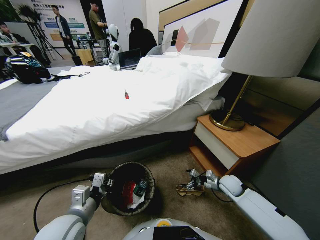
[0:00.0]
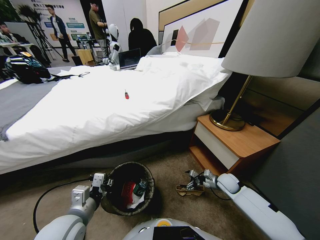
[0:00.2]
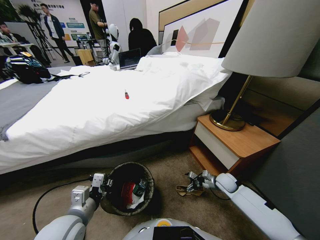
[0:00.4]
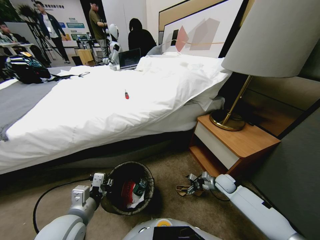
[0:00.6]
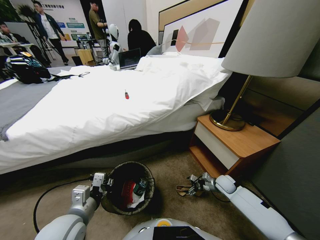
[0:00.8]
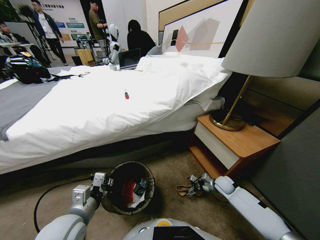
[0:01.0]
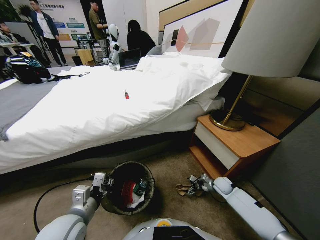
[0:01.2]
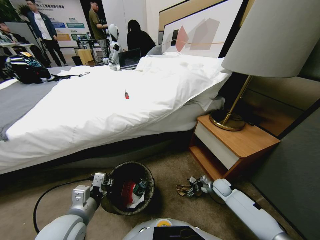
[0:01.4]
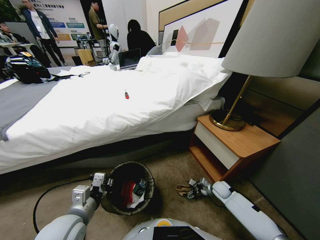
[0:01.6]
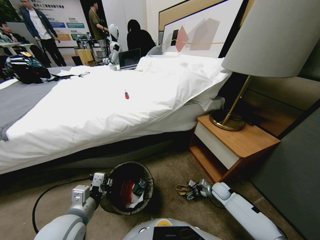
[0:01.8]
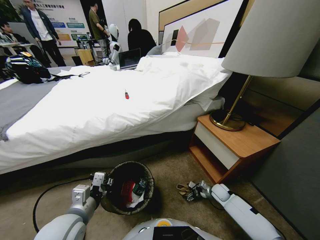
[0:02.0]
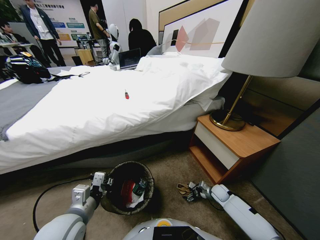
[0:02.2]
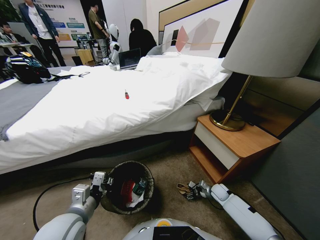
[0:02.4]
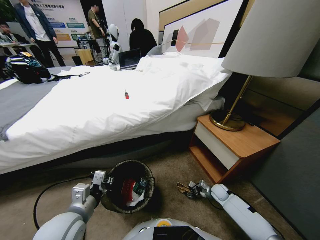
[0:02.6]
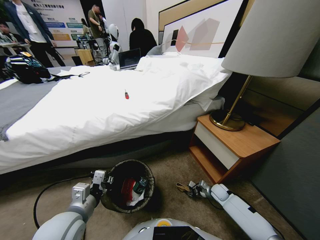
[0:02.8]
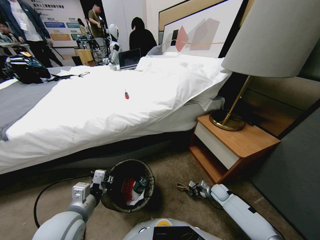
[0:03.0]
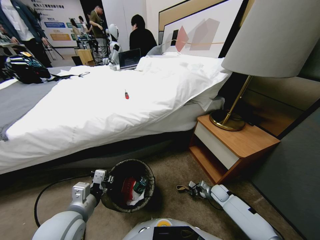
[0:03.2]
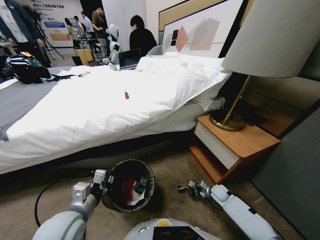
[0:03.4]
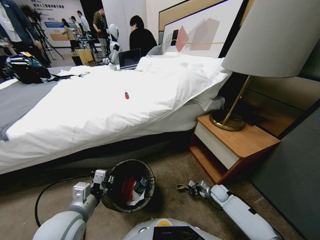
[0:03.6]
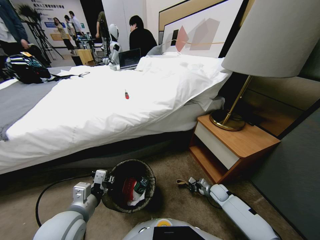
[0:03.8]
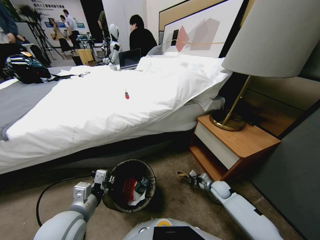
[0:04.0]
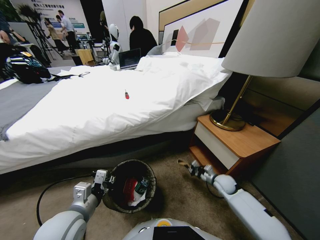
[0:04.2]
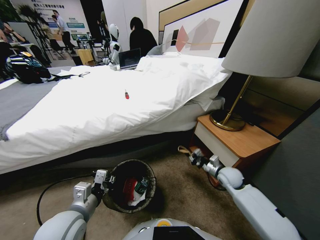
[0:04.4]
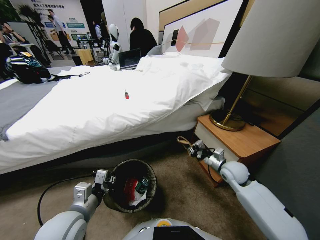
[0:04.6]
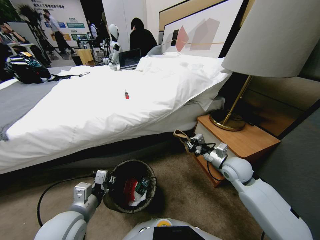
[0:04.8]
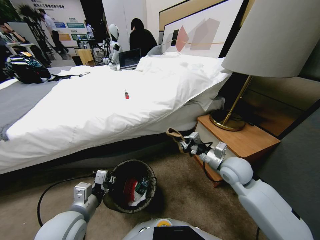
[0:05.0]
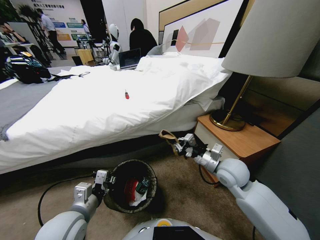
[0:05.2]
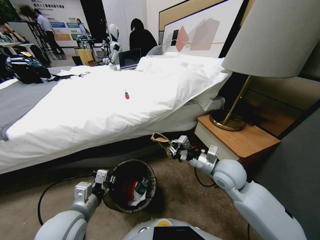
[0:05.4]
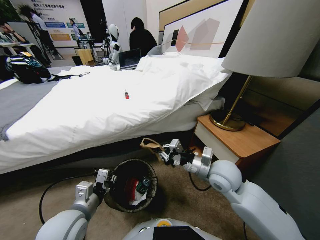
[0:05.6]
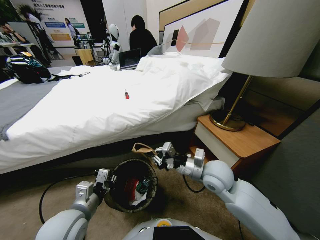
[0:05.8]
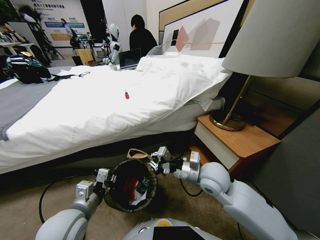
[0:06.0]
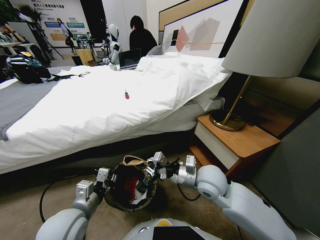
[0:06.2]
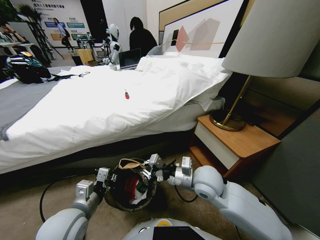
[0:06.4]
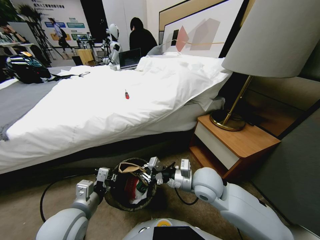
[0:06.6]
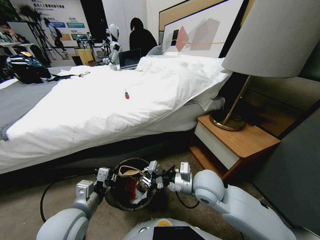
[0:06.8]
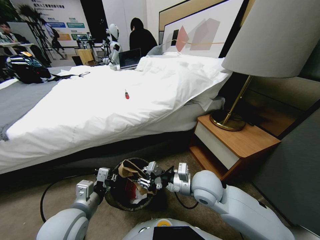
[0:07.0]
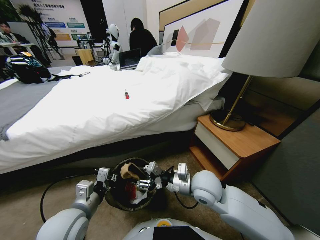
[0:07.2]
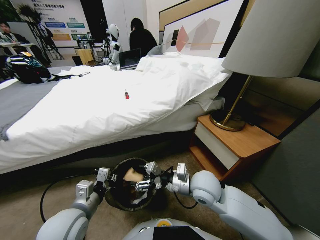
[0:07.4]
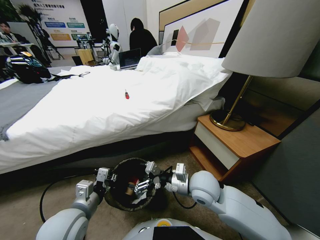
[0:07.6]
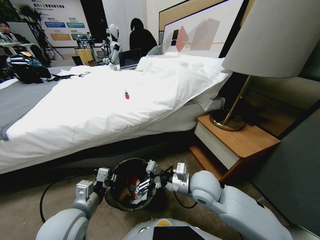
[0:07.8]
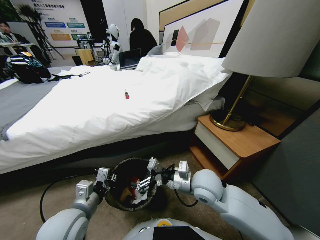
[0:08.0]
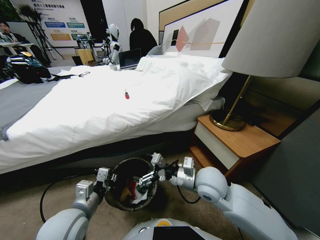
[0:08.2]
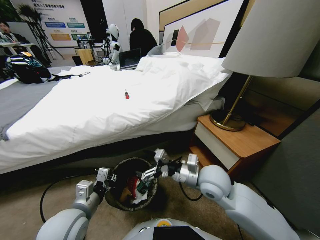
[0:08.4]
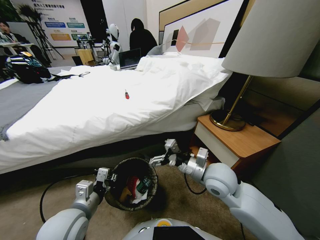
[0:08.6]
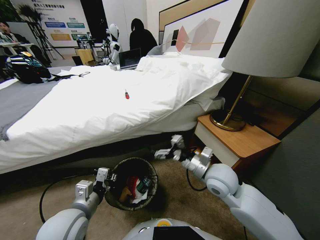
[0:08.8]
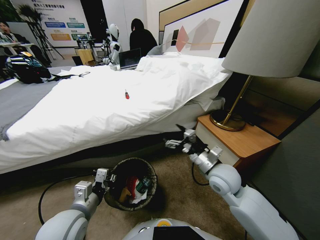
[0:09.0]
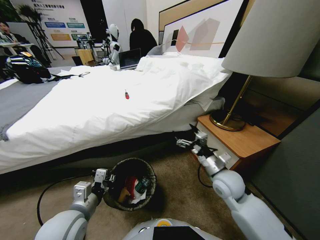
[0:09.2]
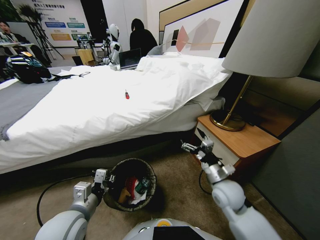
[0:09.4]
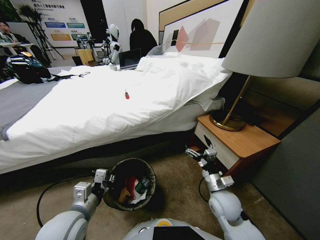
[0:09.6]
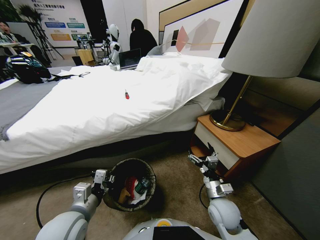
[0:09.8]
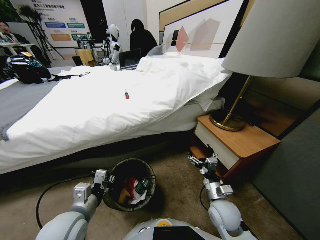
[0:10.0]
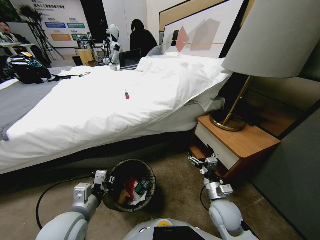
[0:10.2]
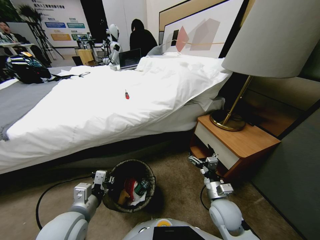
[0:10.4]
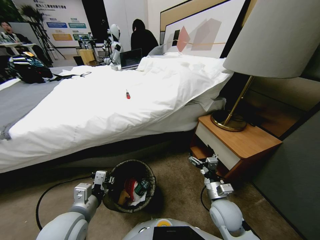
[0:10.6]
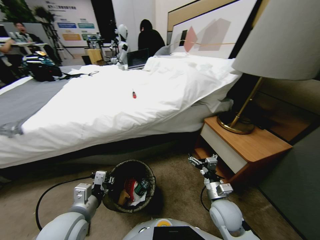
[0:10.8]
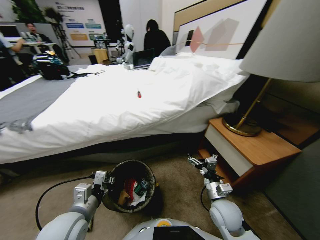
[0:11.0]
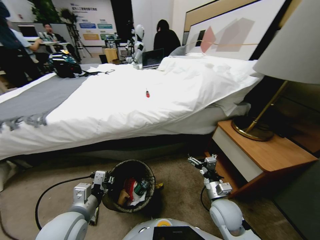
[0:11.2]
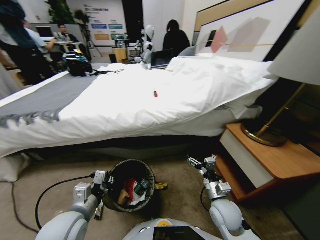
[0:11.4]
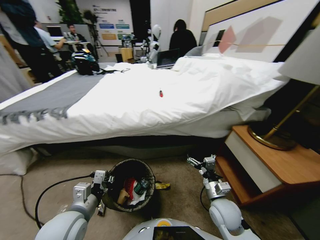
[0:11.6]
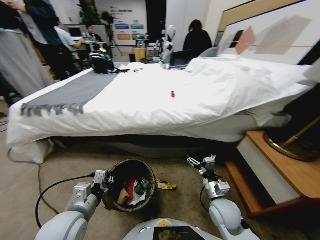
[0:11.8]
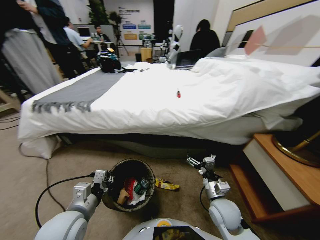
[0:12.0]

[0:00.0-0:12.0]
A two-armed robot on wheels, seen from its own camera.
Task of the whole recording: Pick up the trash bin, then pick up the garbage from the floor and place it into the trash bin.
0:00.0 to 0:01.6: The right gripper heads downward, covering some 10 cm.
0:01.6 to 0:03.0: The right gripper closes its fingers.
0:03.0 to 0:04.4: The right gripper goes approximately 20 cm upward.
0:04.4 to 0:06.0: The right gripper travels to the left, upward and backward by roughly 20 cm.
0:06.0 to 0:07.6: The right gripper opens.
0:07.6 to 0:09.0: The right gripper travels to the right by approximately 10 cm.
0:09.0 to 0:10.4: The right gripper shifts some 10 cm downward and backward.

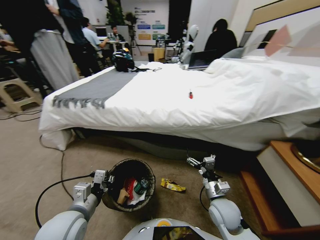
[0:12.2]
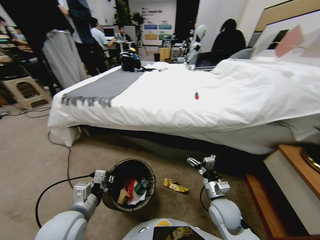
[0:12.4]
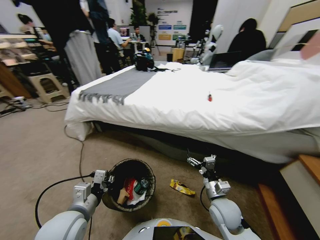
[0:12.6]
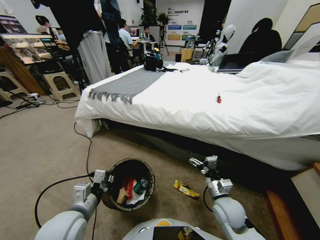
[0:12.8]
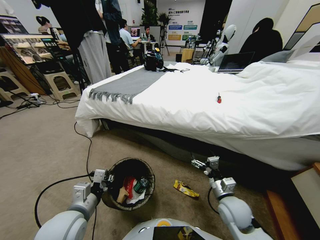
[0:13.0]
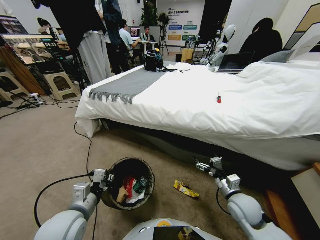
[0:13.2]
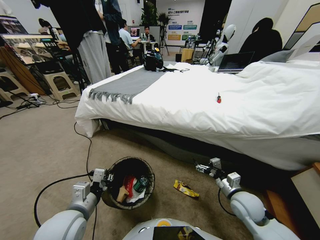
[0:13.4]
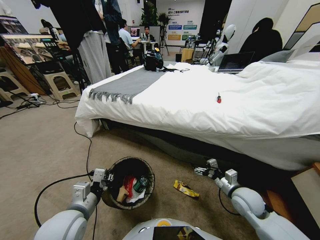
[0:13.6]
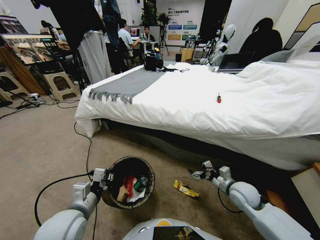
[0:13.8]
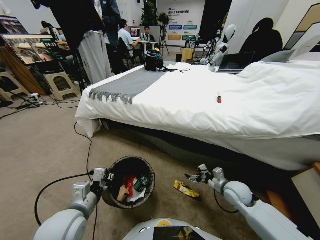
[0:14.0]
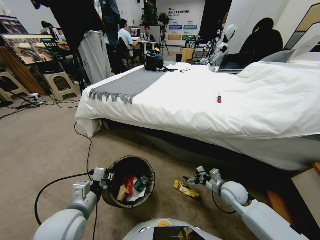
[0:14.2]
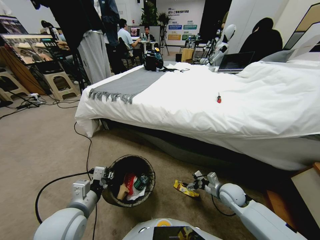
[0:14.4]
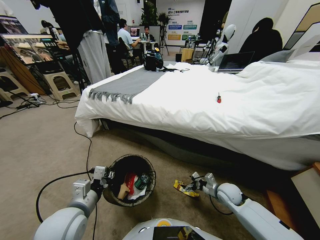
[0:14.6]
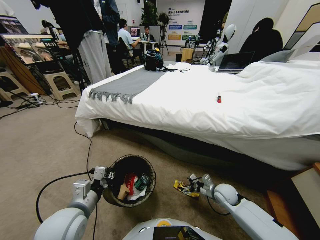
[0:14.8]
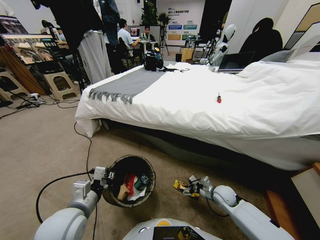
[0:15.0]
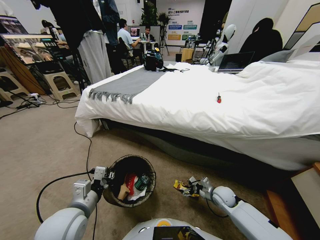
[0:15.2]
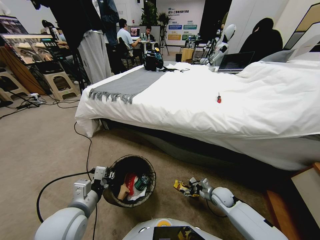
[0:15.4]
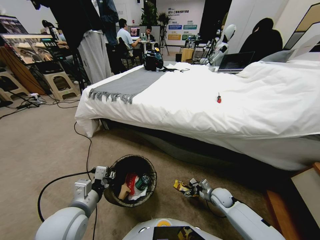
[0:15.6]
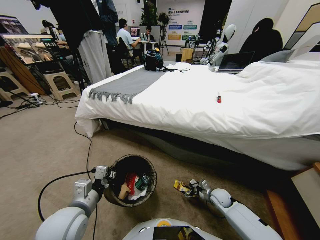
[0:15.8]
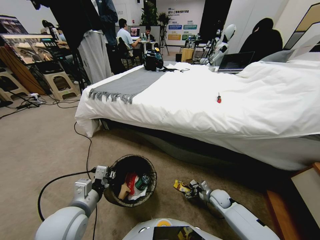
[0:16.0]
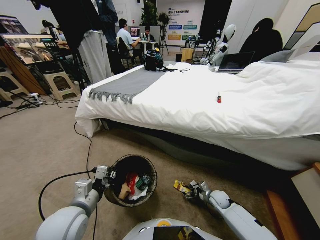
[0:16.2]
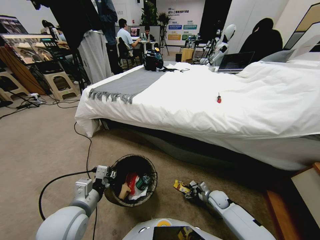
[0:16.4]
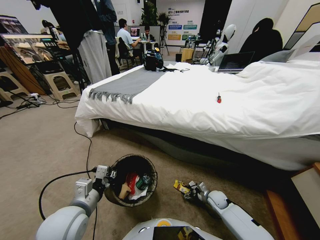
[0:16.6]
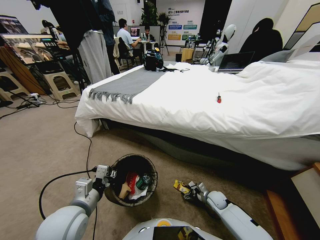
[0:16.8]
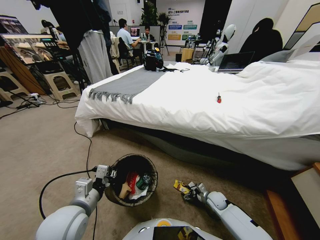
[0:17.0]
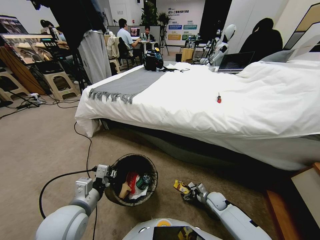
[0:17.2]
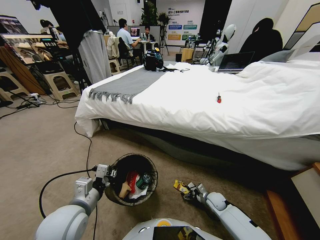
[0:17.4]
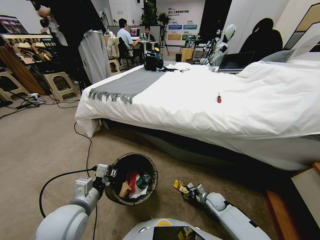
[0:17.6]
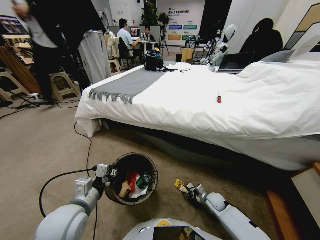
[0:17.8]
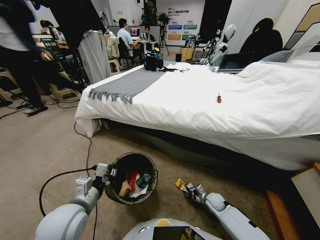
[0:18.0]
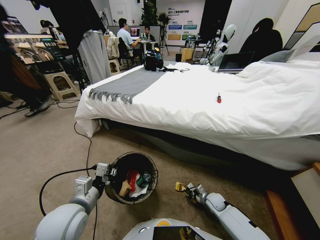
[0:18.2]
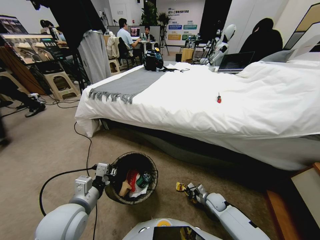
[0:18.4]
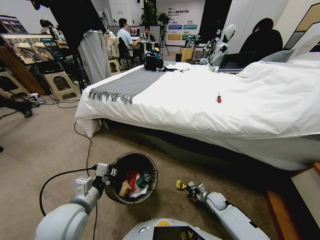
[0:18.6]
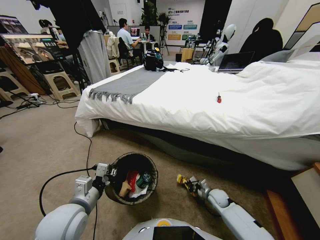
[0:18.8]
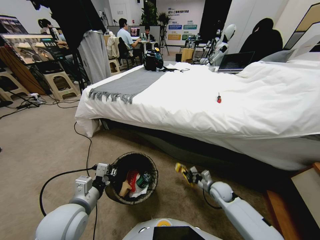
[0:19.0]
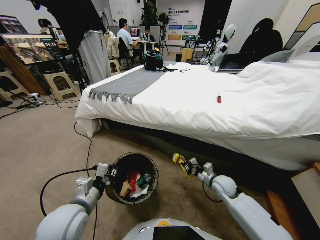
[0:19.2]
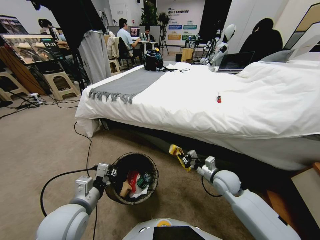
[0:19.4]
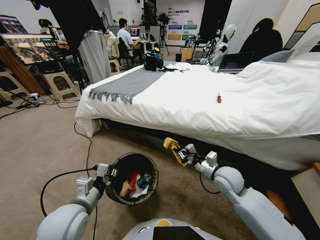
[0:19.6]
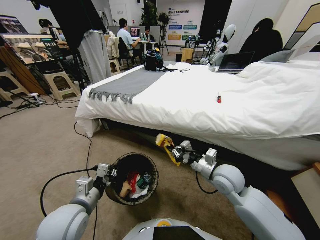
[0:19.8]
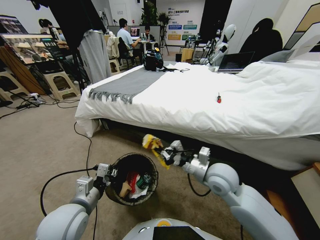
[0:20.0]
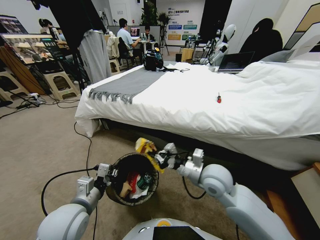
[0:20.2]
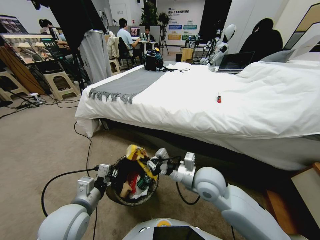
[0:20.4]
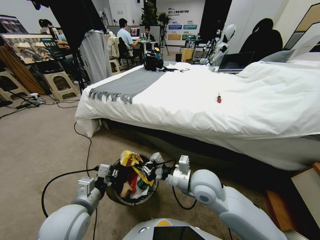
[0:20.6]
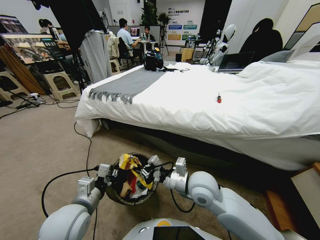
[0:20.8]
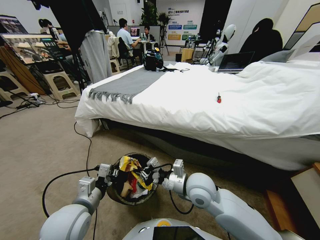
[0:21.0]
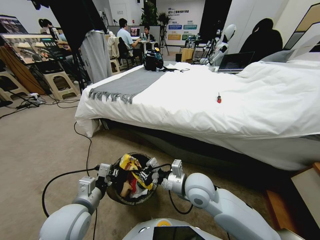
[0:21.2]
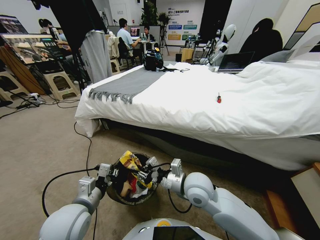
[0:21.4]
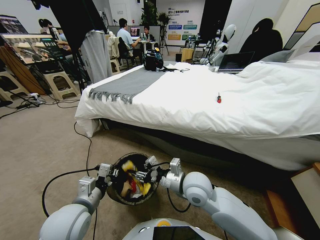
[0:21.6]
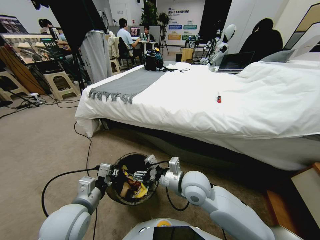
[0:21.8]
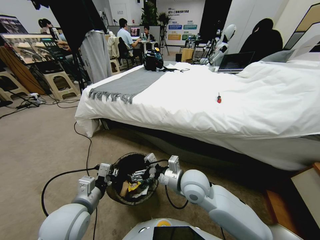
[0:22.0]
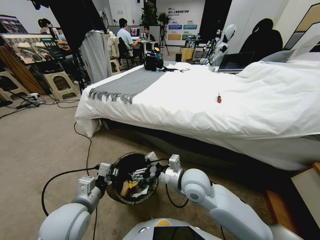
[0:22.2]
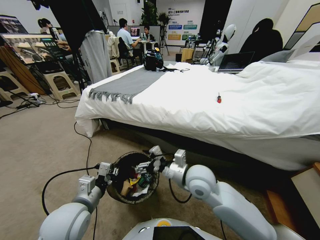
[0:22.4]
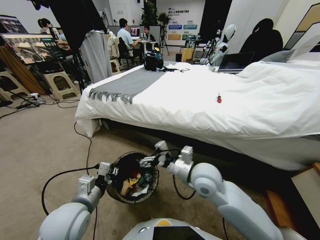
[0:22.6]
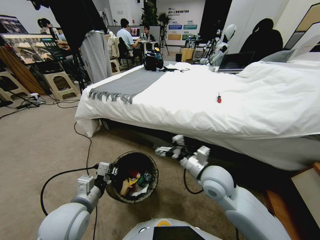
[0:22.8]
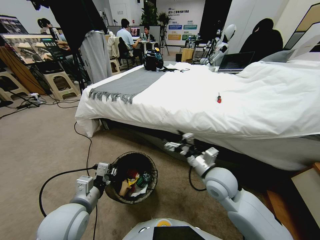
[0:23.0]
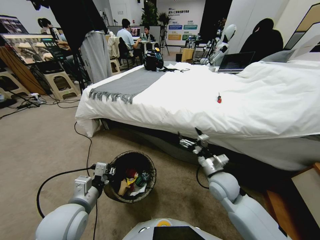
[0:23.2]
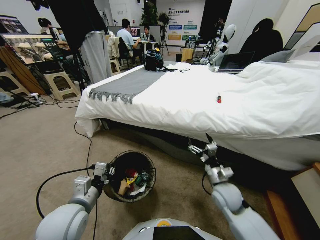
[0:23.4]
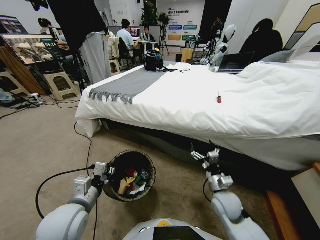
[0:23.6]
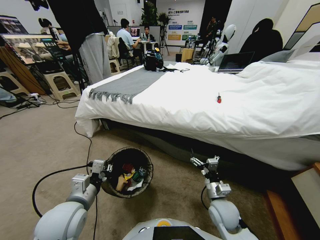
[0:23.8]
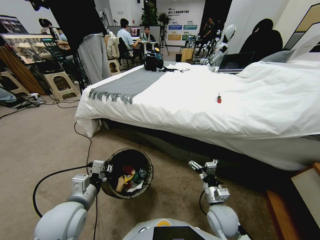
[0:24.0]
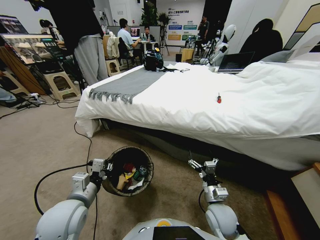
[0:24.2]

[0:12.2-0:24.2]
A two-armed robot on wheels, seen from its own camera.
Task of the whole recording: Pick up the trash bin, then pick up the garbage from the floor and place it into the trash bin.
0:12.2 to 0:13.8: The right gripper travels to the right and forward by about 10 cm.
0:13.8 to 0:15.2: The right gripper shifts about 10 cm downward.
0:15.2 to 0:16.6: The right gripper is displaced downward by some 5 cm.
0:16.6 to 0:18.2: The right gripper closes its fingers.
0:18.2 to 0:19.8: The right gripper is displaced upward by approximately 35 cm.
0:19.8 to 0:21.2: The right gripper shifts some 10 cm to the left.
0:21.2 to 0:22.6: The right gripper ends up some 5 cm from where it was, and opens up.
0:22.6 to 0:24.2: The right gripper is displaced downward and backward by some 15 cm.
